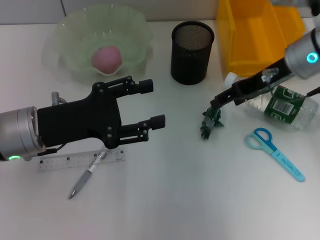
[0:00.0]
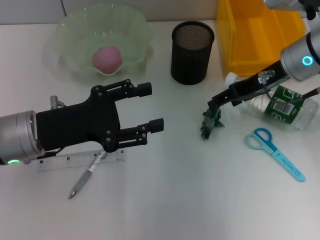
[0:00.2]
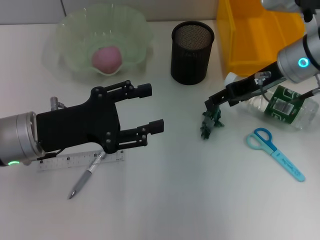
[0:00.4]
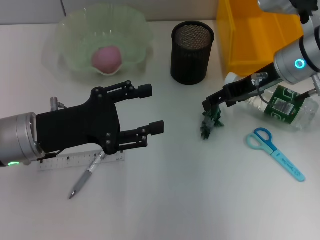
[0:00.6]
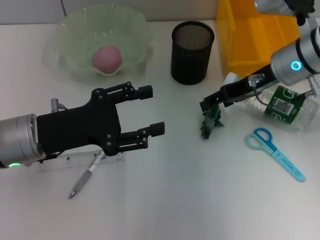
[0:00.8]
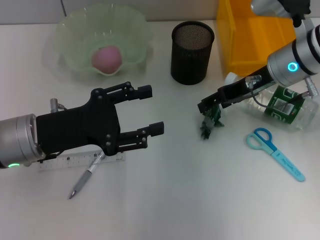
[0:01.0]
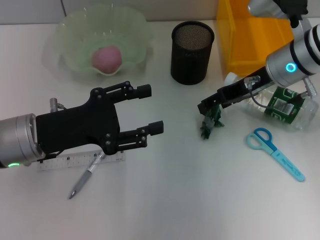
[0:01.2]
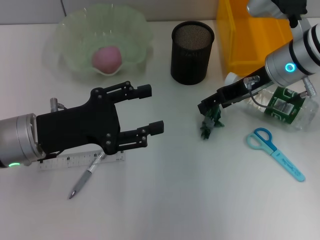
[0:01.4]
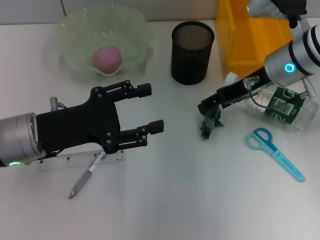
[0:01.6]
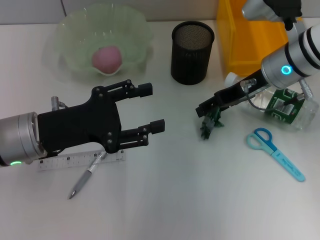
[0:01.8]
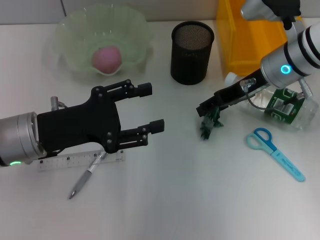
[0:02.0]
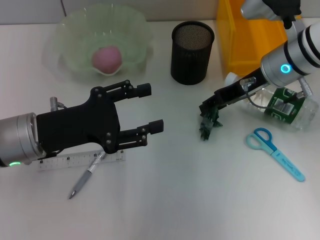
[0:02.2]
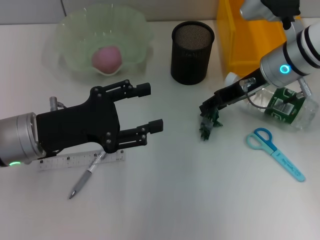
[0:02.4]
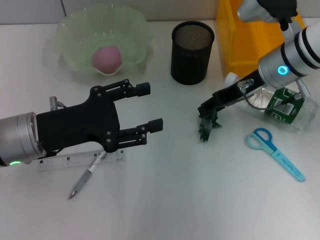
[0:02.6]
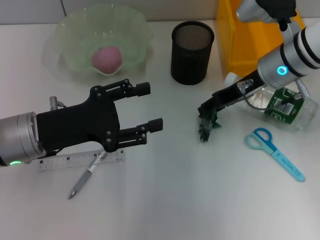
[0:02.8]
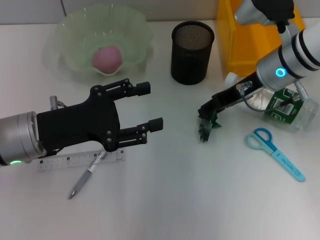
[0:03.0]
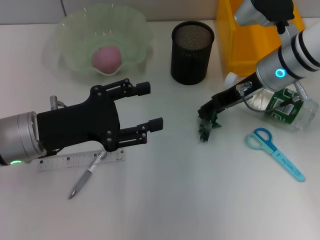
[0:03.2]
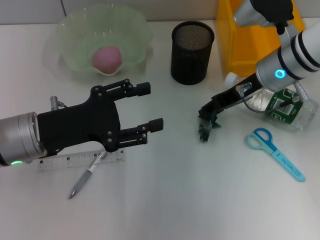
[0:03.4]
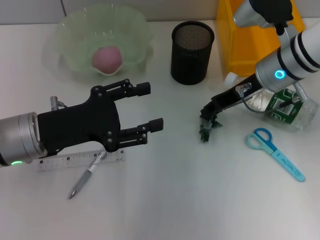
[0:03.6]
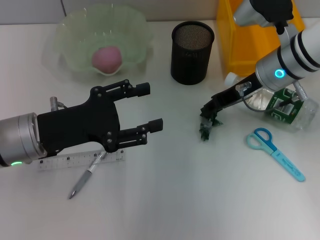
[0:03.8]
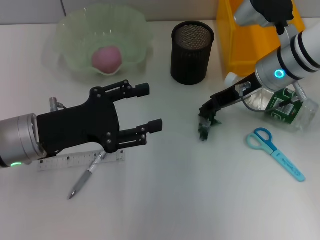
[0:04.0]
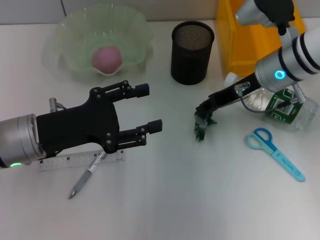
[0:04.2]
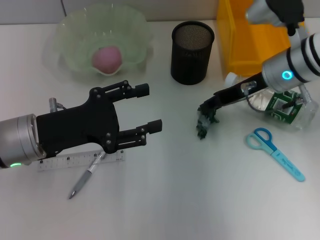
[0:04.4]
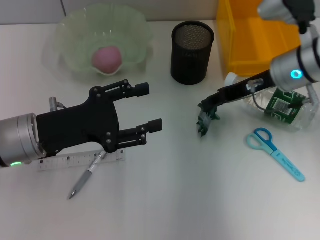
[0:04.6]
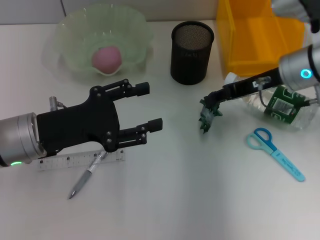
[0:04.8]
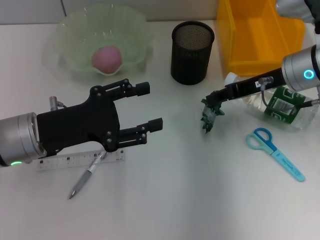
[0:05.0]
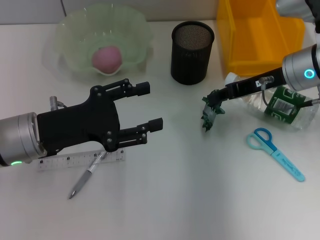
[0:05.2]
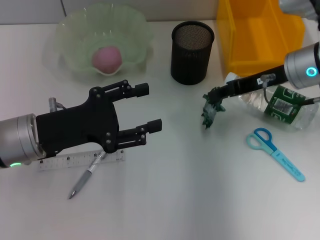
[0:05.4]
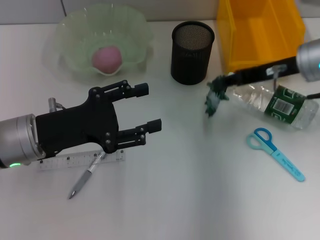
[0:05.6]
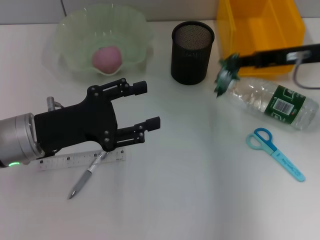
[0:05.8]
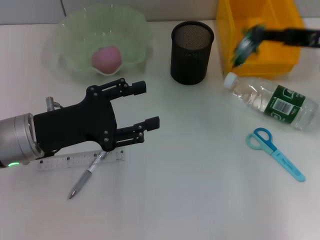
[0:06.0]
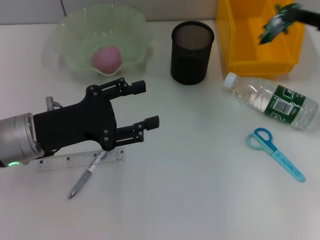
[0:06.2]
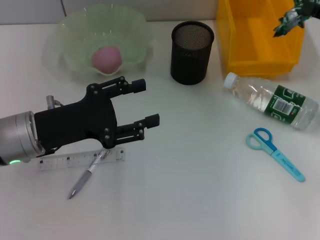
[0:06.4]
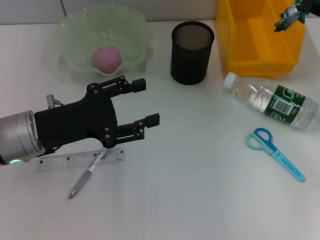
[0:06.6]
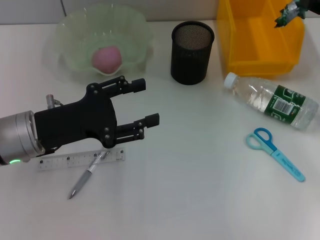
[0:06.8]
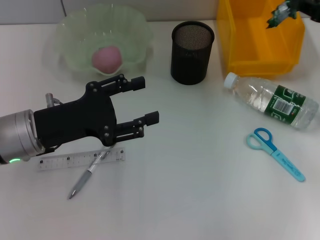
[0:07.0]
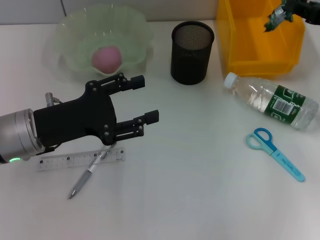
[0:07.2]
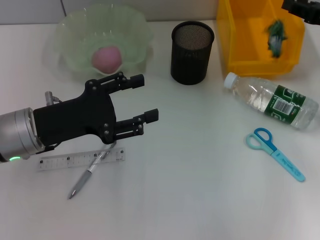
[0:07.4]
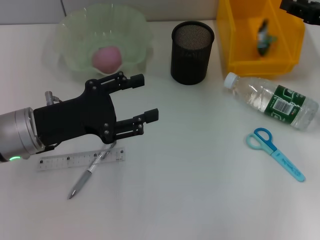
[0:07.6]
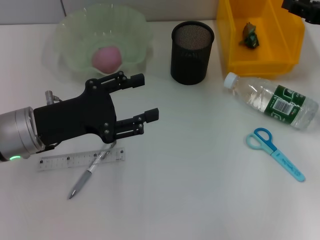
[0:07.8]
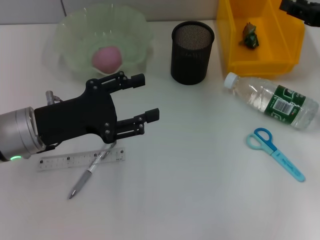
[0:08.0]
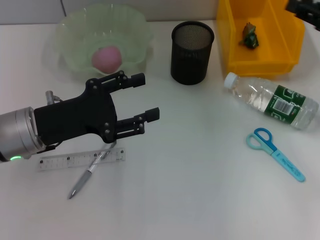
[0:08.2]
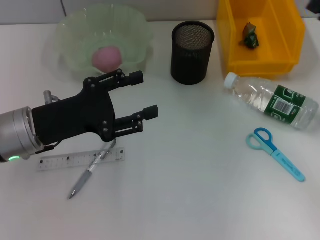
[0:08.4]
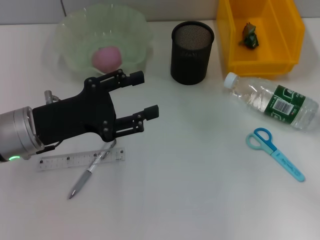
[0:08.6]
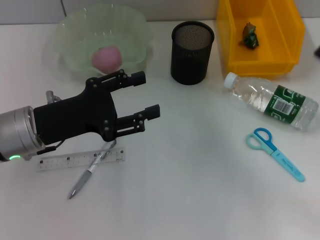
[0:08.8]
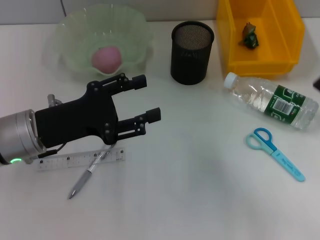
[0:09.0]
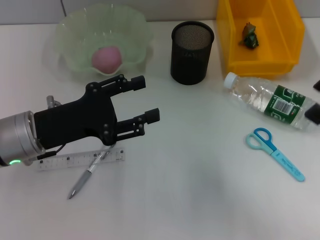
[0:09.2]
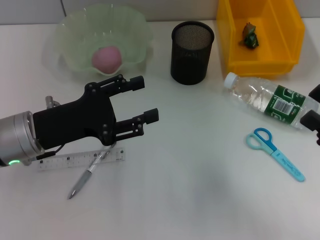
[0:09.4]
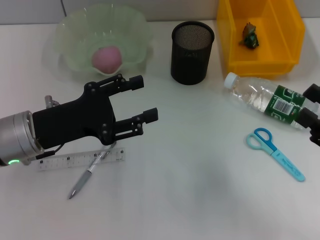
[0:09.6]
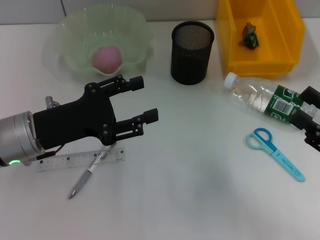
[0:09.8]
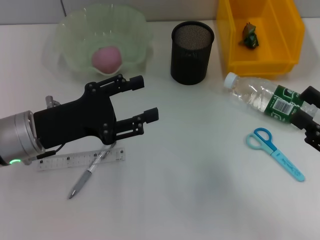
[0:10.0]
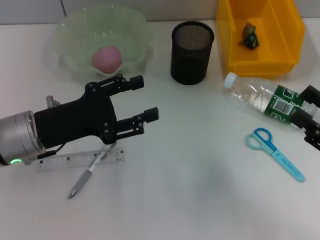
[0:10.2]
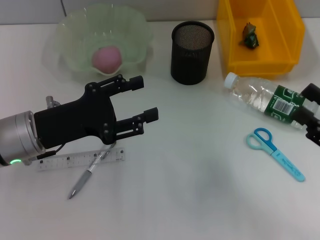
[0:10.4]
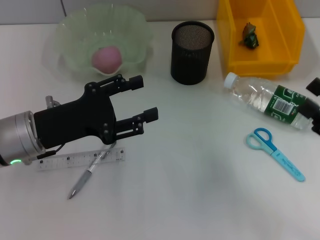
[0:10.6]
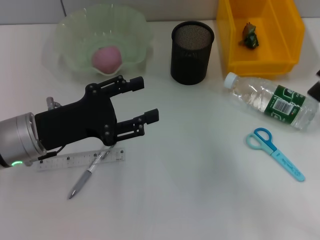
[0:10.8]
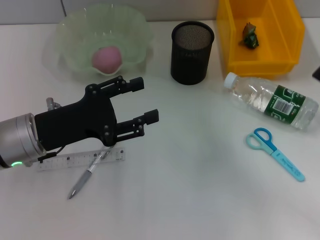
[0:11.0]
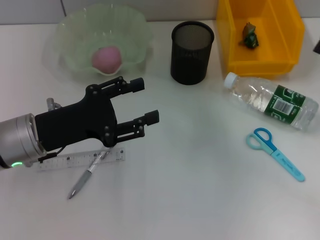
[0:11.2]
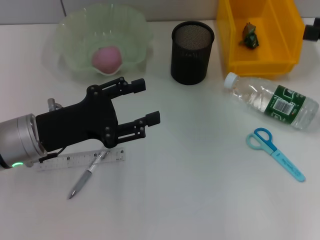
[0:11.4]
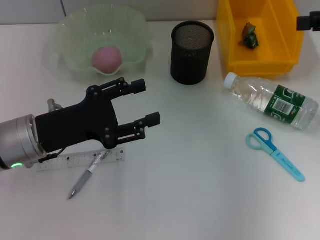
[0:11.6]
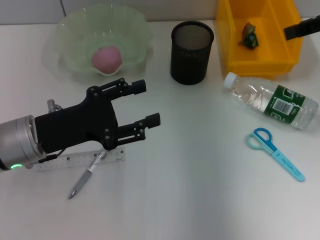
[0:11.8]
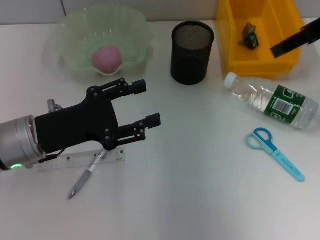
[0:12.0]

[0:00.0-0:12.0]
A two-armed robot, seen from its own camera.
Step, 0:00.0 to 0:04.0: Grab the plastic with the right hand.
Step, 0:04.2 to 0:07.8: Place the plastic into the trash can with the right hand.
0:00.0 to 0:01.6: The grippers move only a little.
0:01.6 to 0:03.0: The right gripper closes its fingers.
0:03.0 to 0:04.4: The grippers move only a little.
0:04.4 to 0:06.0: The right gripper shifts some 10 cm to the right and upward.
0:06.0 to 0:07.6: The right gripper changes place by roughly 5 cm.
0:07.6 to 0:09.0: The right gripper shifts roughly 20 cm backward.
0:09.0 to 0:10.4: The grippers make only small movements.
0:10.4 to 0:12.0: The right gripper goes roughly 30 cm forward and upward.

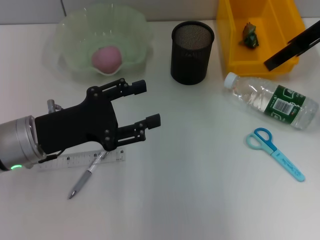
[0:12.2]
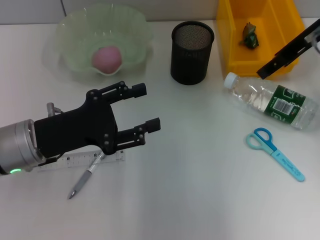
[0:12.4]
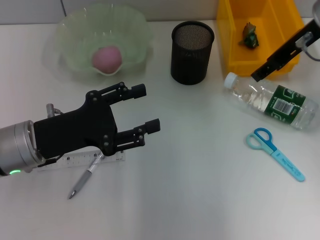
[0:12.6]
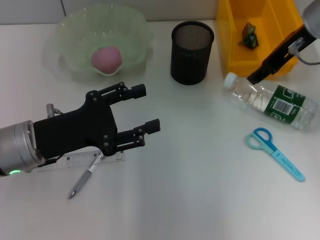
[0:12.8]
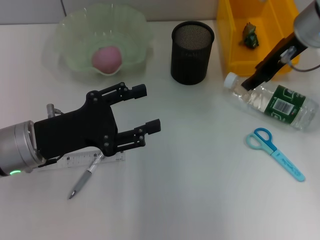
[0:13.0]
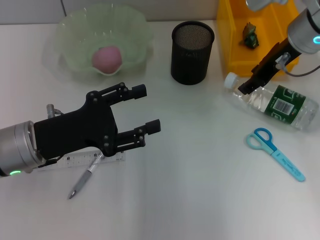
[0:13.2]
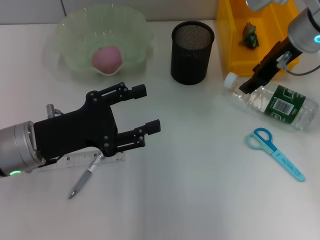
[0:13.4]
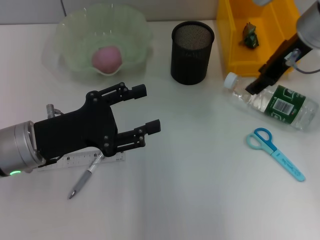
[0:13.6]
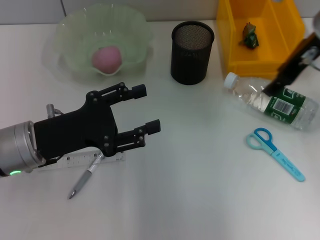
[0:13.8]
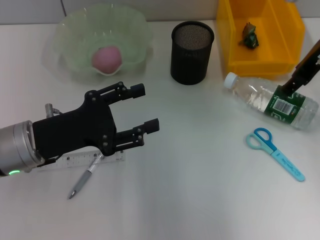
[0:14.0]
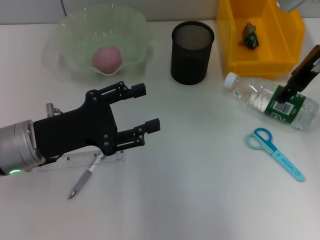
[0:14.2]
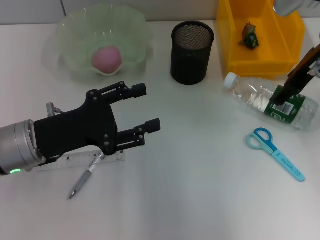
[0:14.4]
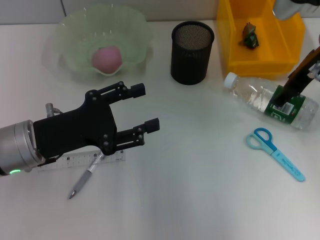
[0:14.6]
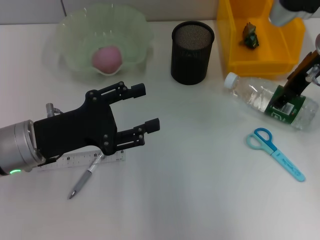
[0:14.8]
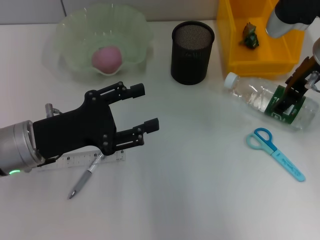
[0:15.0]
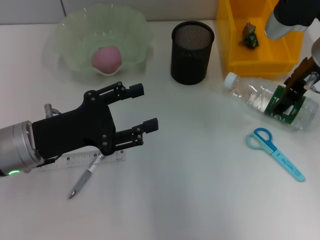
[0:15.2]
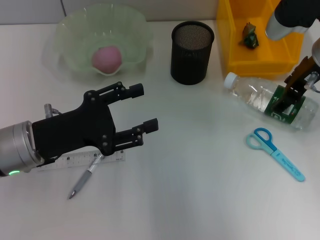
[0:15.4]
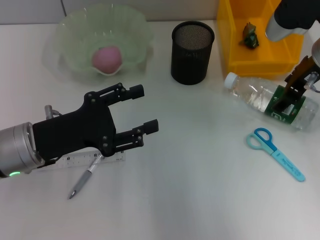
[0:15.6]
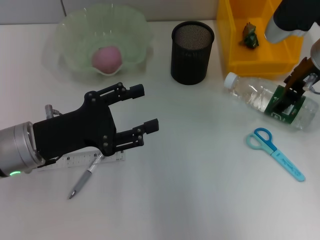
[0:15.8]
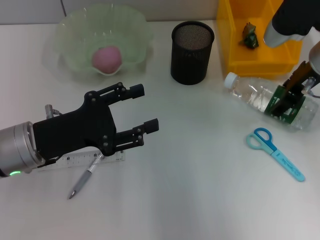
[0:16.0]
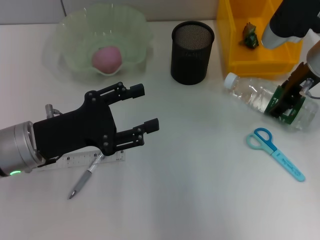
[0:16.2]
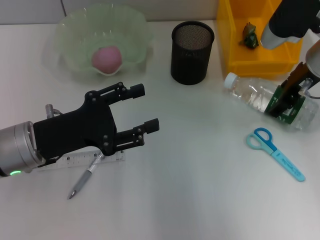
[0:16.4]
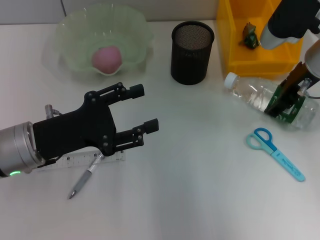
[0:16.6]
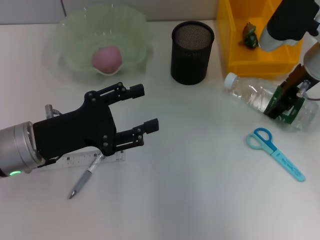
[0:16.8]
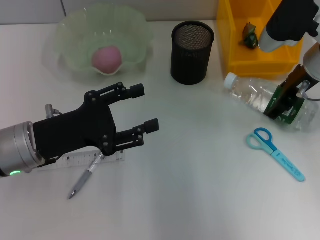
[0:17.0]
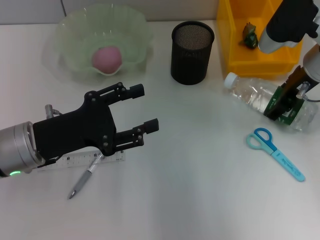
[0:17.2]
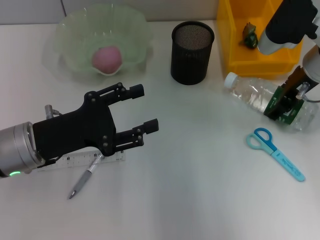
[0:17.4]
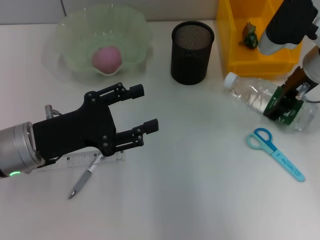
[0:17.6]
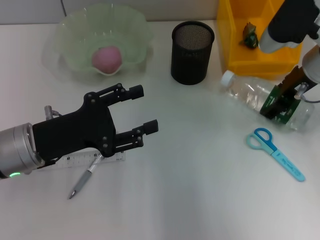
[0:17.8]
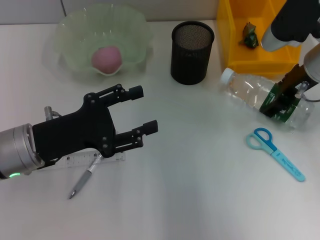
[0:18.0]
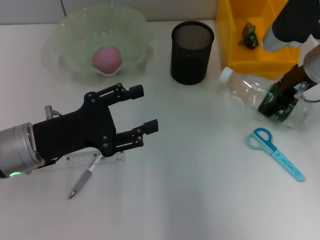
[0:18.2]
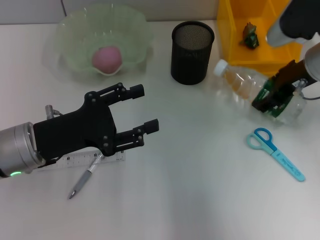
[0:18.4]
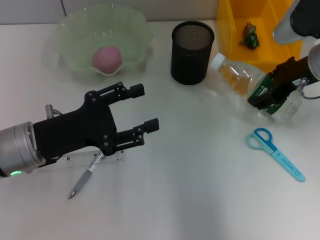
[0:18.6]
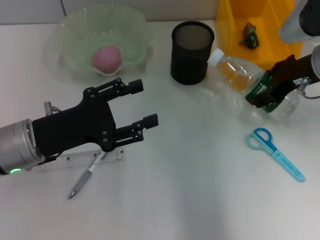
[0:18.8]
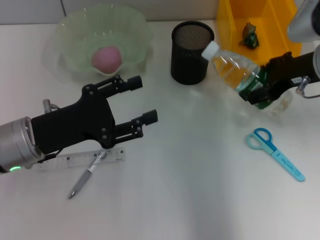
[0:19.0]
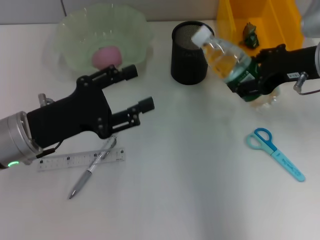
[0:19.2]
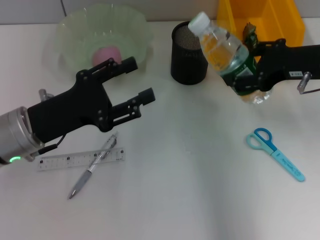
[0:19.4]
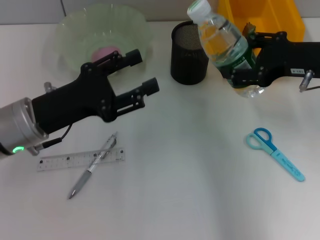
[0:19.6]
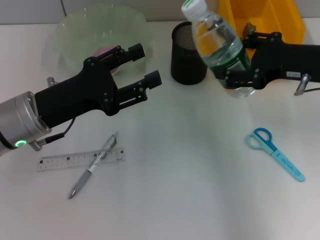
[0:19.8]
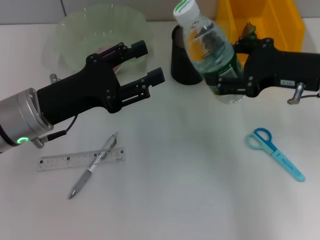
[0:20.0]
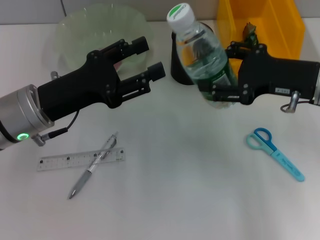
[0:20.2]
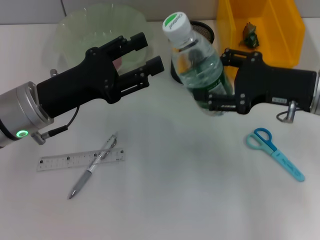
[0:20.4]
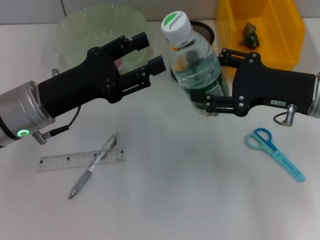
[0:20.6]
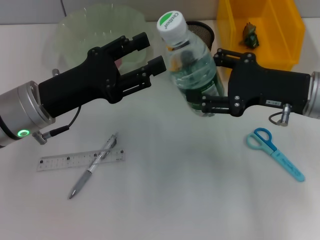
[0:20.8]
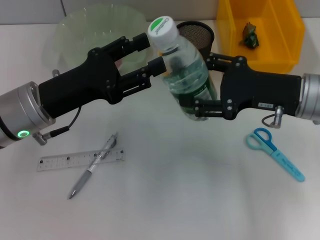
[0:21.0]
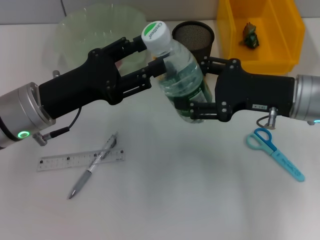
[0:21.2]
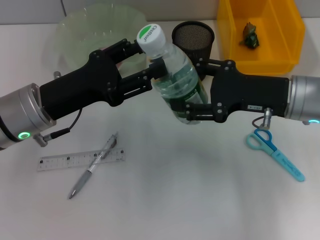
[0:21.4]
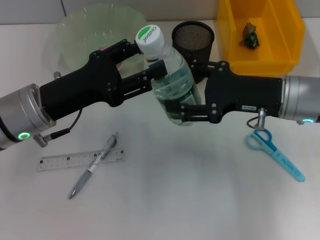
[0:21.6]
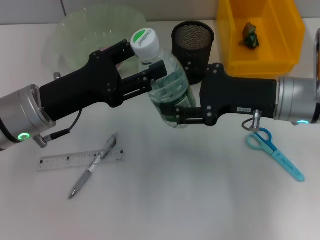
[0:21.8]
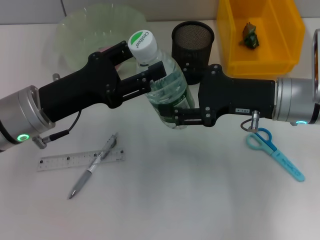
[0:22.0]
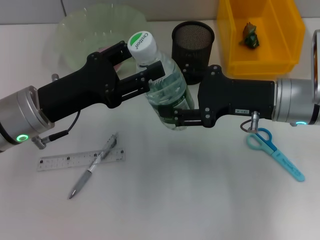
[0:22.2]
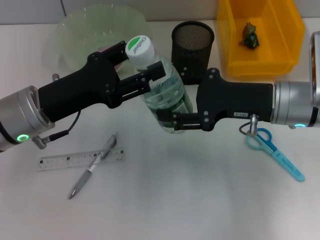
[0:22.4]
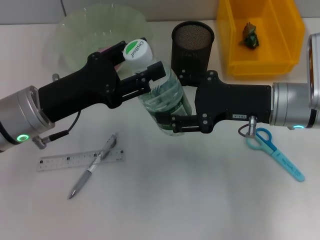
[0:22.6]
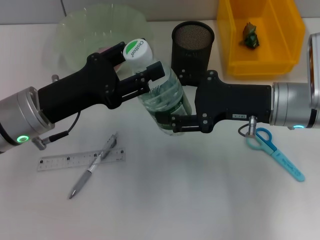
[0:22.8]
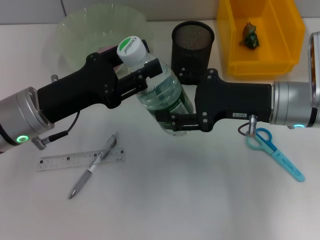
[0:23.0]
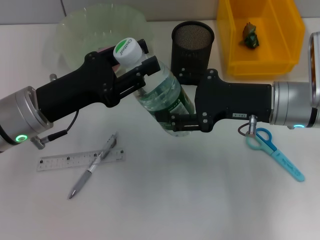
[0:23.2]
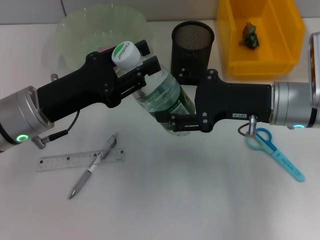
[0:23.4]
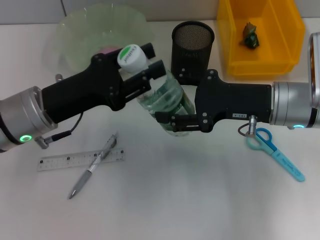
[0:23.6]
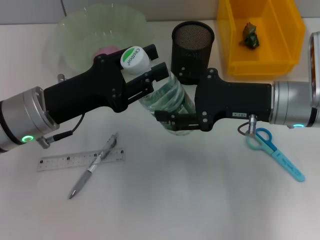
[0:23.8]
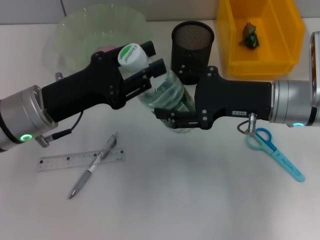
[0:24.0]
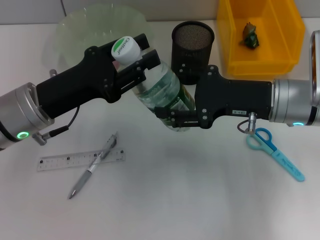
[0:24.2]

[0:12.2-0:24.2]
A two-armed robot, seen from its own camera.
Step, 0:12.2 to 0:17.4: Grab the water bottle with the right hand.
0:13.8 to 0:16.6: The grippers make only small movements.
0:16.6 to 0:18.2: There are only small adjustments of the grippers.
0:18.2 to 0:19.8: The right gripper goes some 5 cm backward.
0:19.8 to 0:21.2: The right gripper shifts by some 5 cm.
0:21.2 to 0:22.6: The grippers make only small movements.
0:22.6 to 0:24.2: The left gripper closes its fingers.
